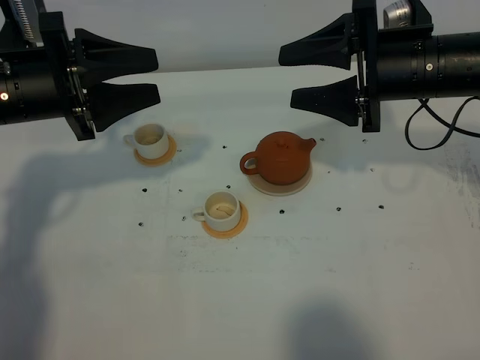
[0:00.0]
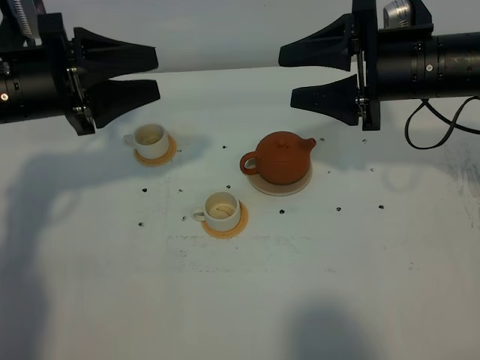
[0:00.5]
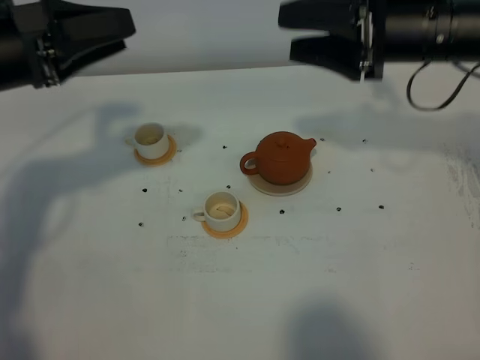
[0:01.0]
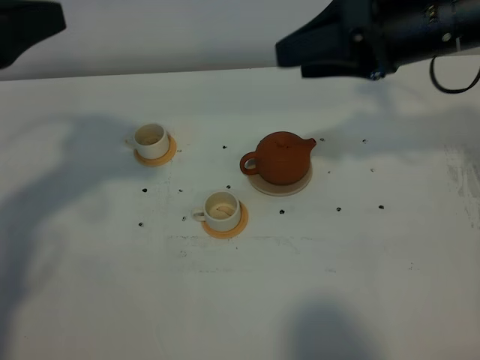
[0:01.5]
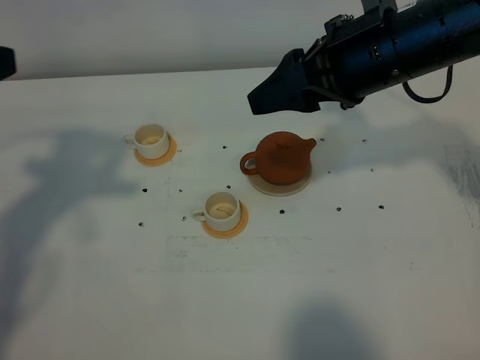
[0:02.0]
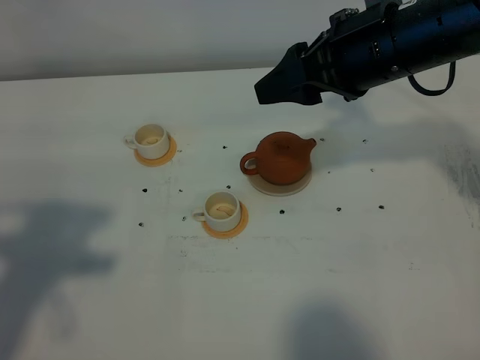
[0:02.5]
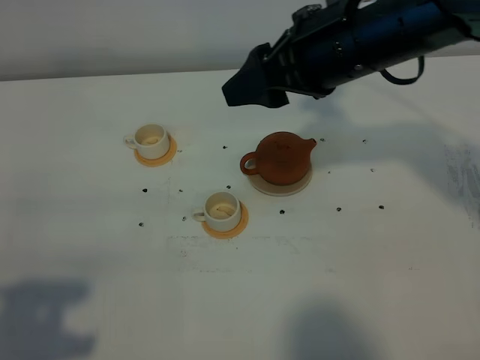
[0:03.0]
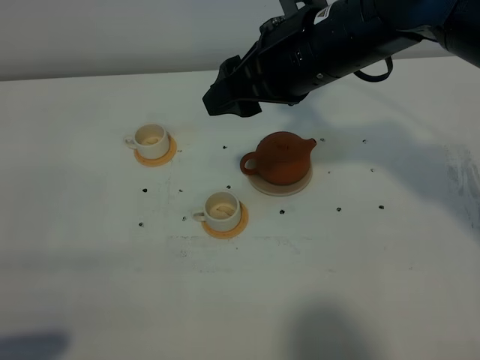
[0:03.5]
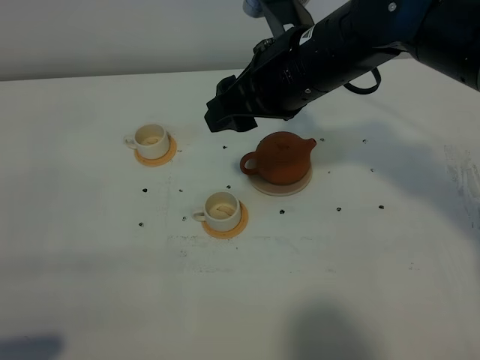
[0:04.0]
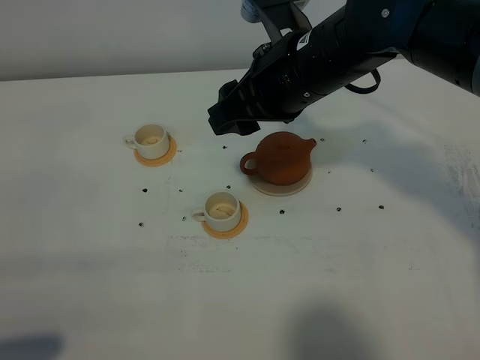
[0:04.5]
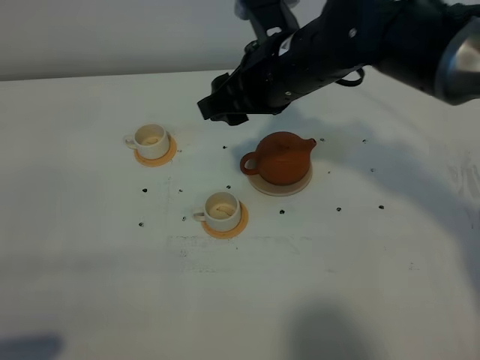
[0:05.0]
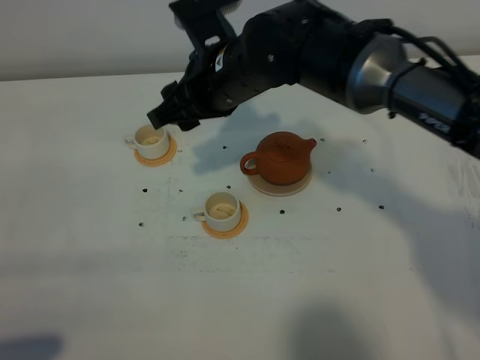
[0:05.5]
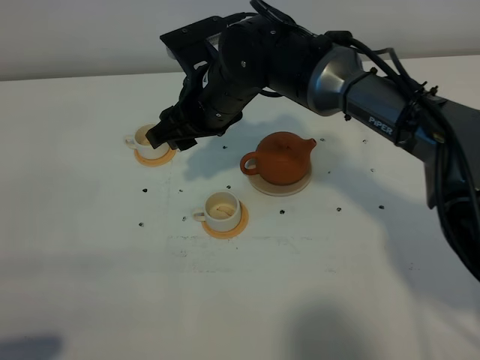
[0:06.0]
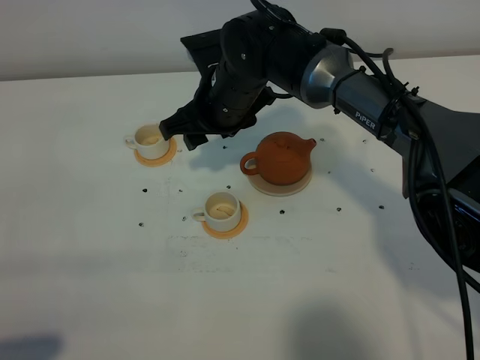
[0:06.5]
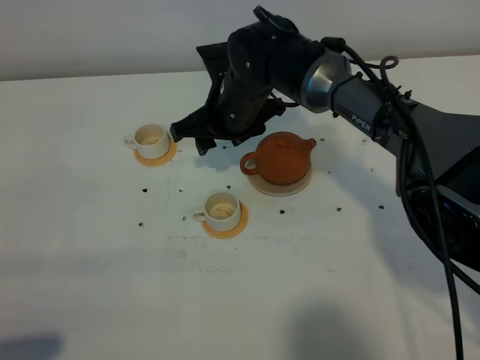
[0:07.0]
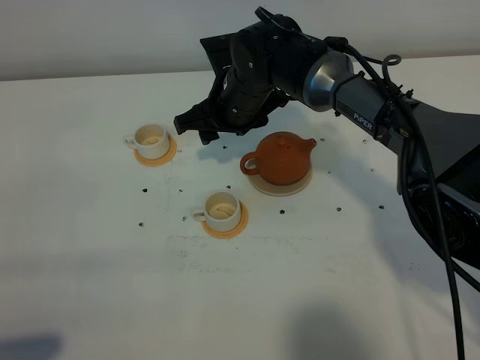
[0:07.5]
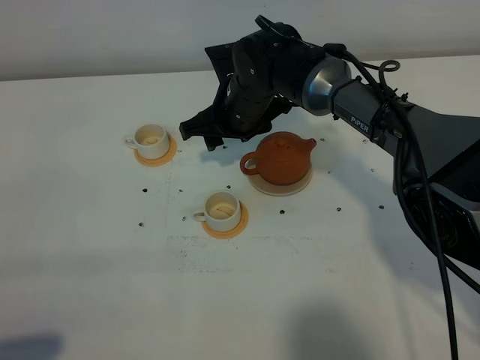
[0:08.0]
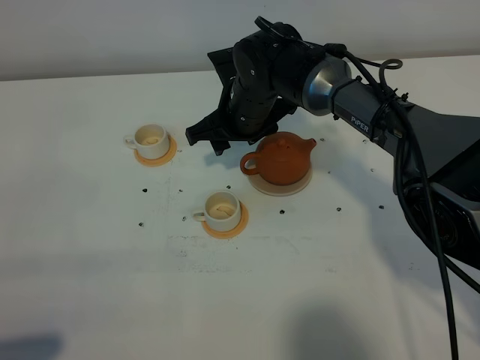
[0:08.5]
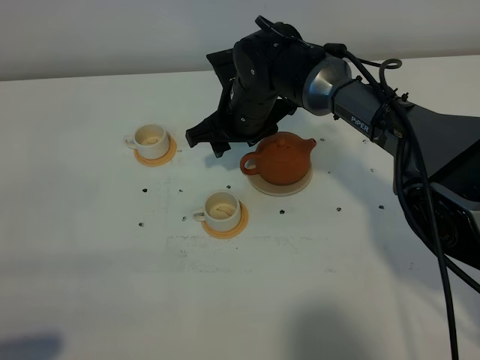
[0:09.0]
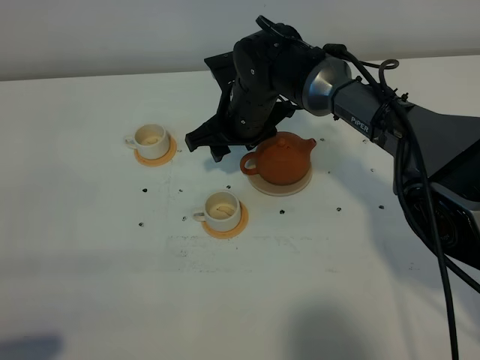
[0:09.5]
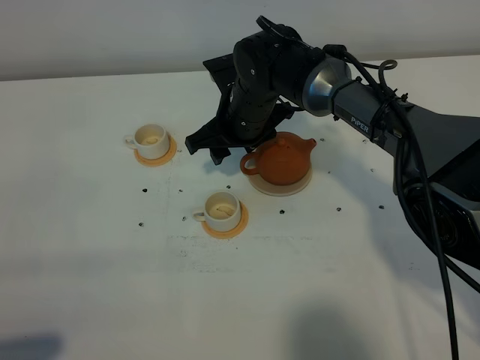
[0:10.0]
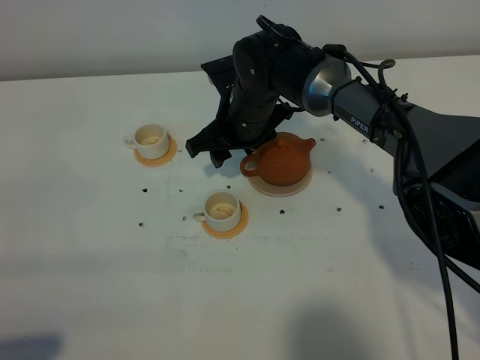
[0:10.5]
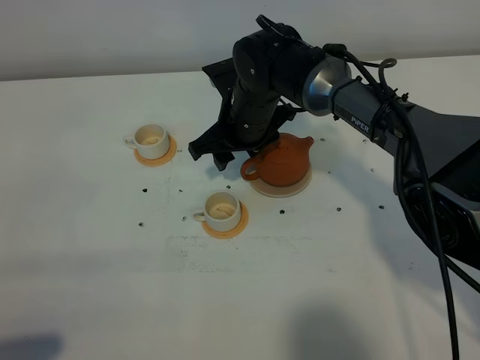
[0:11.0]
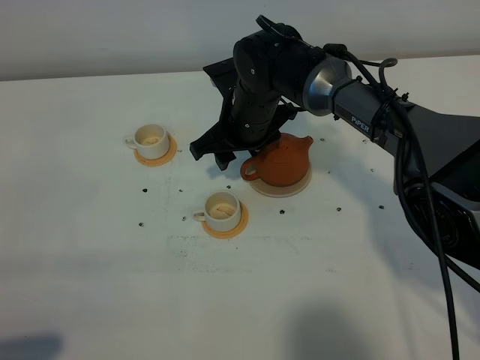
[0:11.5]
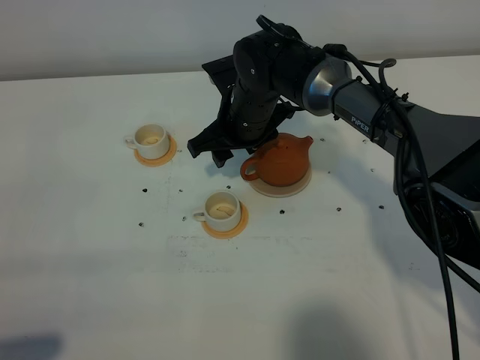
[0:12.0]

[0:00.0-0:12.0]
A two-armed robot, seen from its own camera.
Task of the whole recording: grasp the brown teapot and pour the tea into the two white teacups one by one, put the brown teapot back in its original place.
0:00.0 to 0:02.0: The left gripper heads upward and backward, covering roughly 15 cm, and closes; the right gripper changes place by about 5 cm.
0:02.0 to 0:04.0: The right gripper moves to the left, approximately 5 cm. Meanwhile the left gripper goes roughly 25 cm backward and downward, and closes its fingers.
0:04.0 to 0:06.0: The right gripper moves to the left, downward and forward, approximately 15 cm.
0:06.0 to 0:08.0: The right gripper heads downward, covering approximately 5 cm.
0:08.0 to 0:10.0: The grippers make only small movements.
0:10.0 to 0:12.0: Neither gripper changes place.

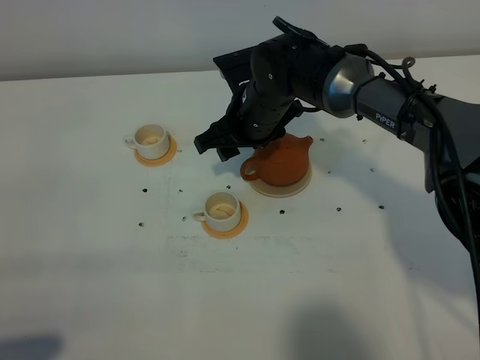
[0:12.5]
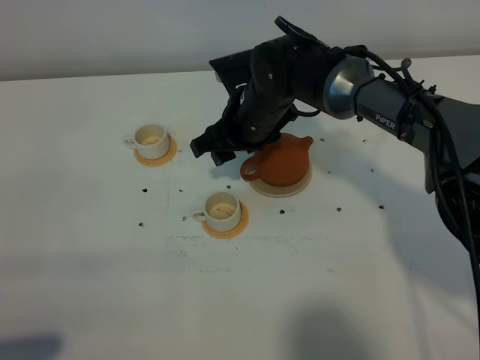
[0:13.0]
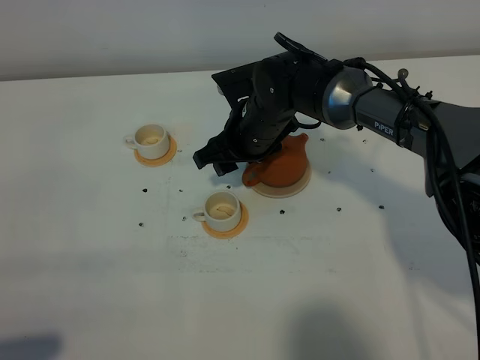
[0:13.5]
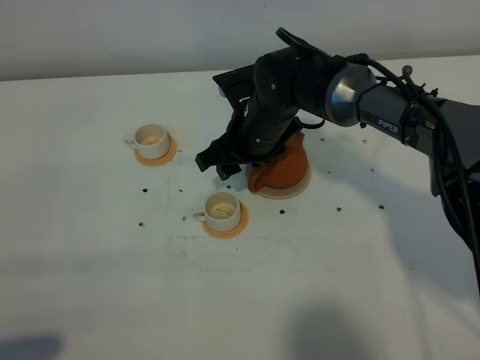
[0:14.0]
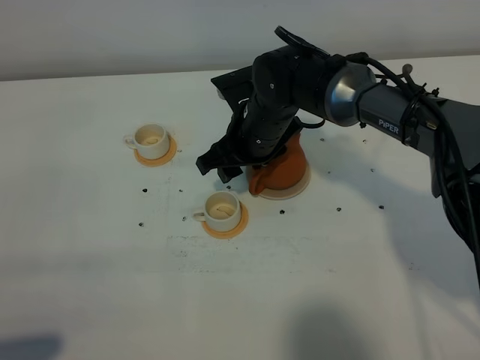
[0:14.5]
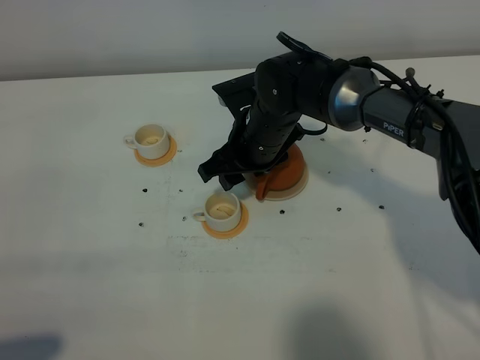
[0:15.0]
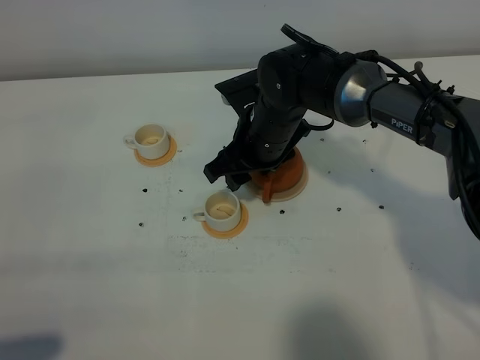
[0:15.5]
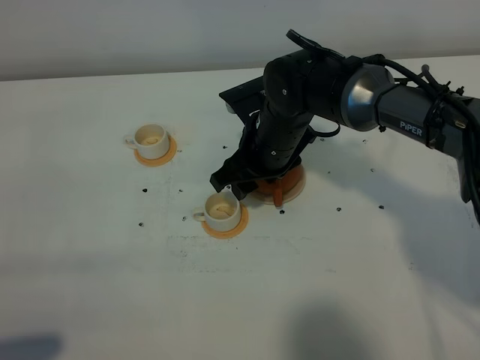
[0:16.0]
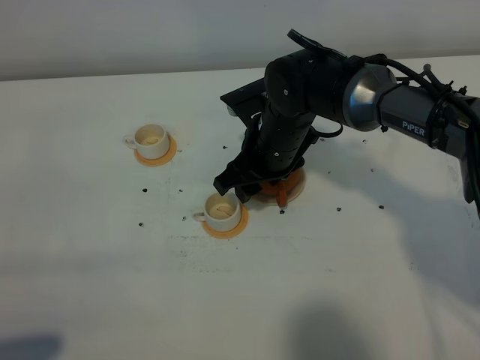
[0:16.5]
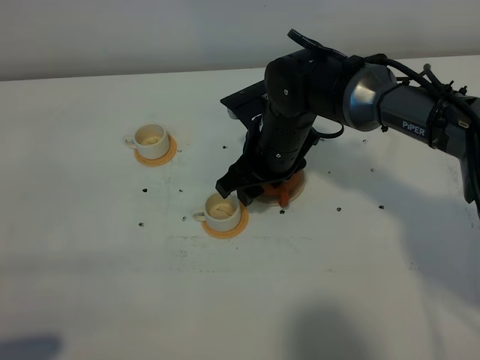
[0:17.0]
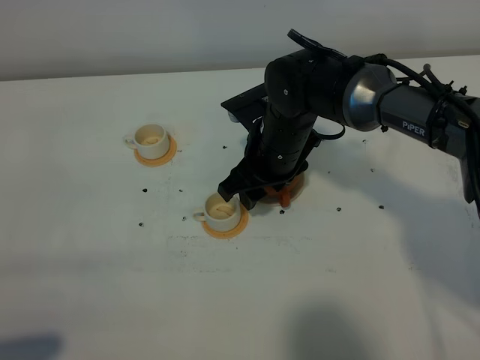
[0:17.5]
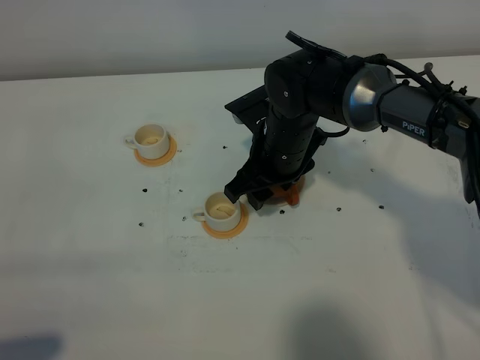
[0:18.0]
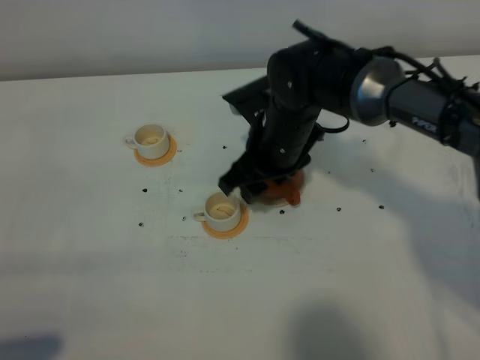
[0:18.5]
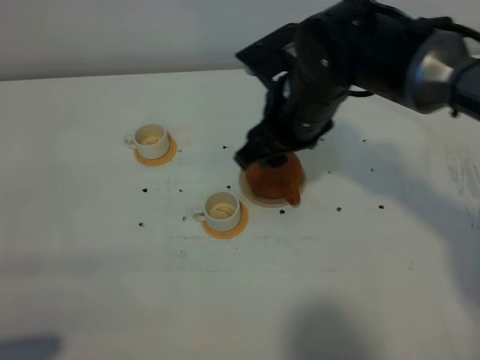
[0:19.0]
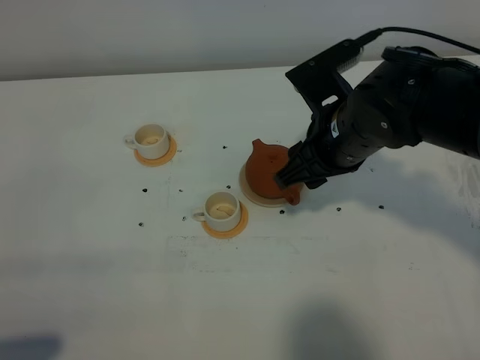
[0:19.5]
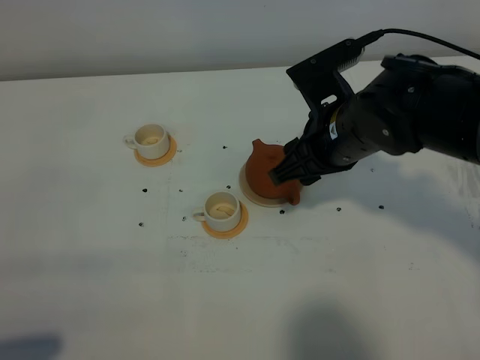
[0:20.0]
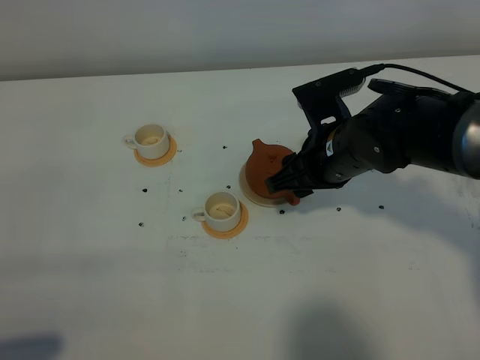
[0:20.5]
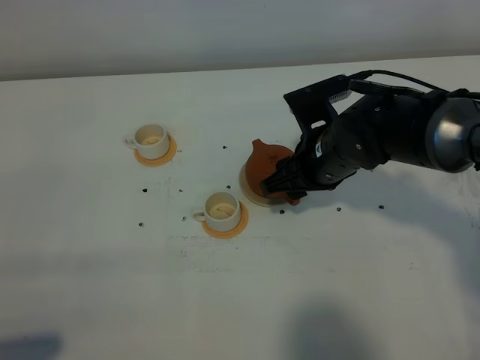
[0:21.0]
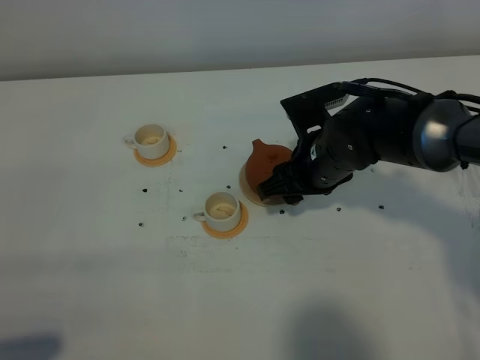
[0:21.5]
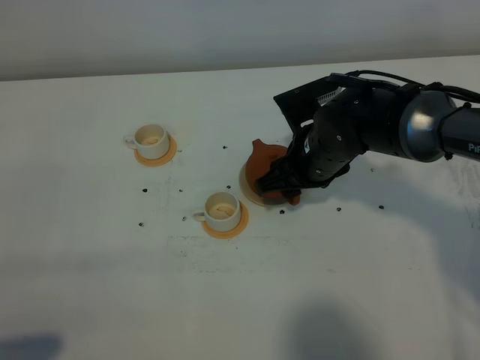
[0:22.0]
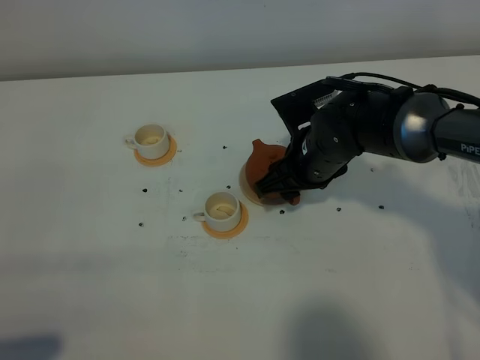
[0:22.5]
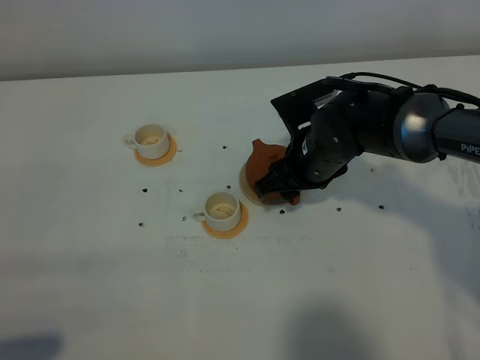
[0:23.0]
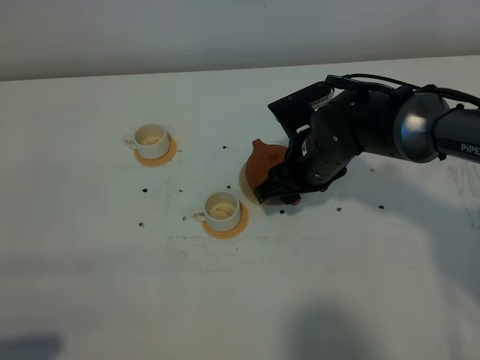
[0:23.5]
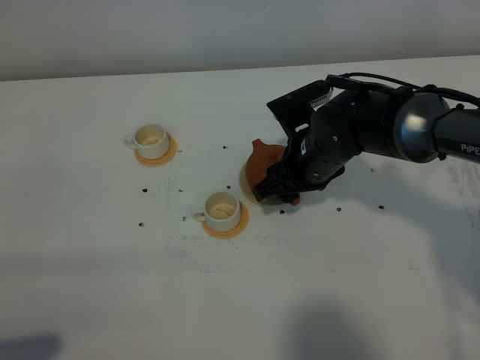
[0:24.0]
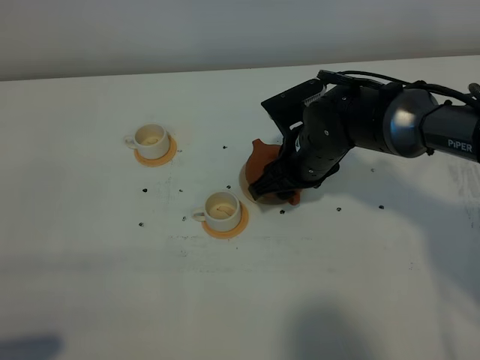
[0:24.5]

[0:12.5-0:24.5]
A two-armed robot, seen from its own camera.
Task of the whole recording: grasp the brown teapot and pour the tea into the two white teacups one by one, put the brown teapot back in its original place.
0:12.5 to 0:16.5: The grippers make only small movements.
0:16.5 to 0:18.5: There are only small adjustments of the grippers.
0:18.5 to 0:20.5: The right gripper shifts roughly 5 cm to the right.
0:20.5 to 0:22.5: There are only small adjustments of the grippers.
0:22.5 to 0:24.5: The two grippers keep their place.

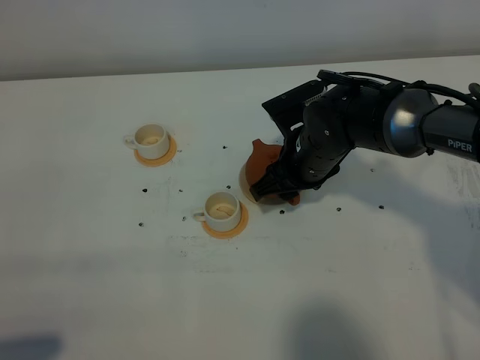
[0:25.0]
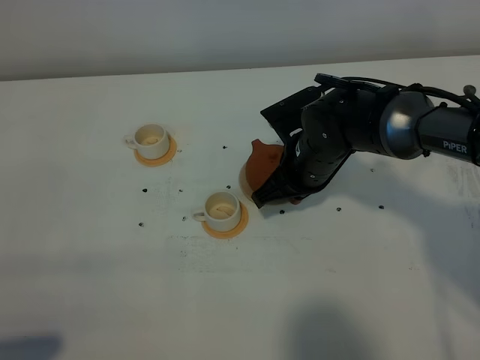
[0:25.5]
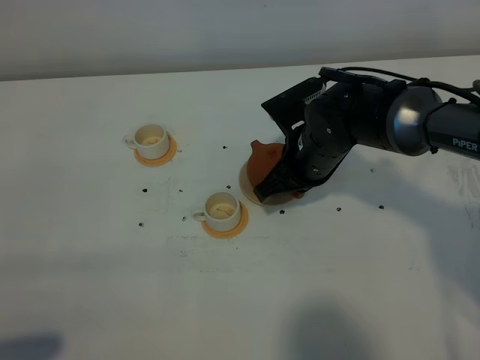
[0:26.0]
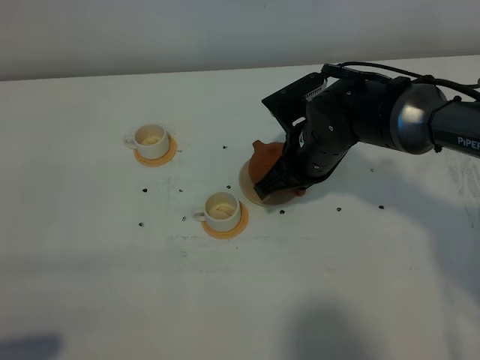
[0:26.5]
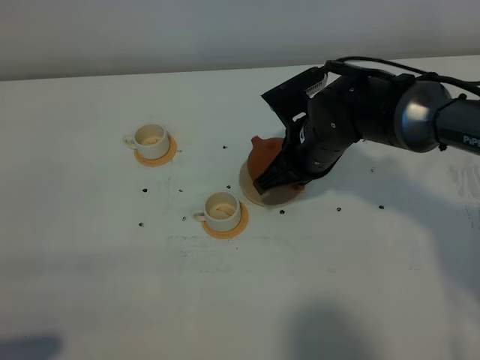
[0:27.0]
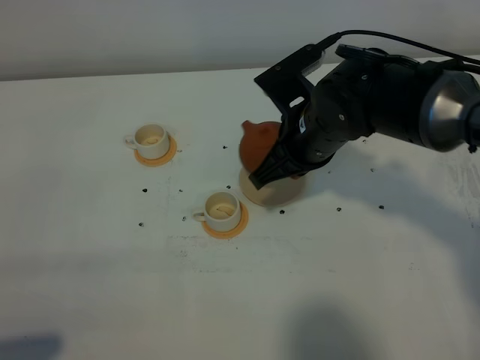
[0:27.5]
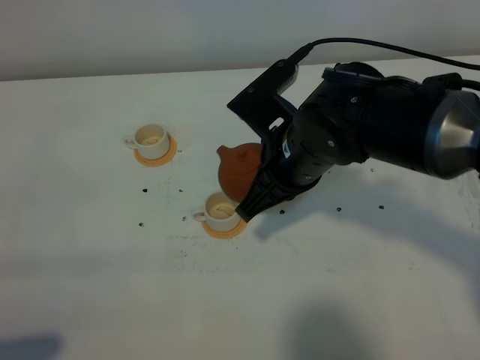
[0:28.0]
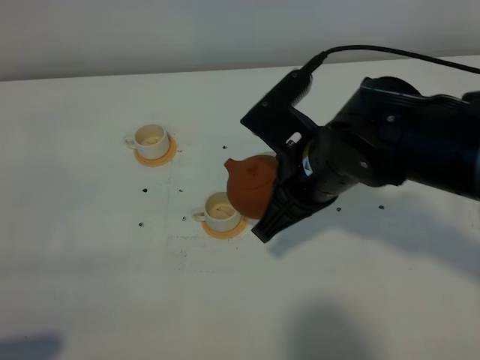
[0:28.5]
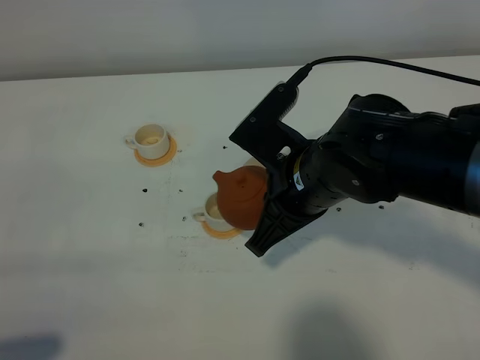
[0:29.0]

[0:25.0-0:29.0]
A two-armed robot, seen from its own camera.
Task of the whole recording: grasp the brown teapot and pour the tea into the two white teacups one by one, put the brown teapot back in its original place.
Step, 0:25.0 to 0:27.0: Pick up the teapot with the right gripper.
0:25.0 to 0:27.0: The right gripper closes up.
0:27.0 to 0:29.0: The right gripper is displaced backward and upward by about 10 cm.
